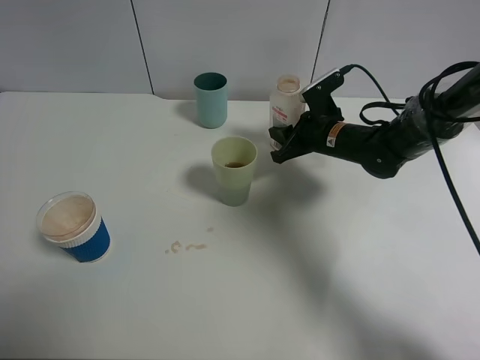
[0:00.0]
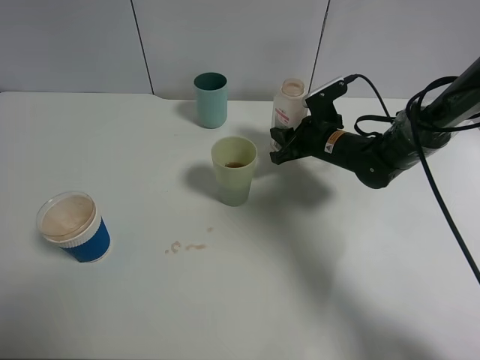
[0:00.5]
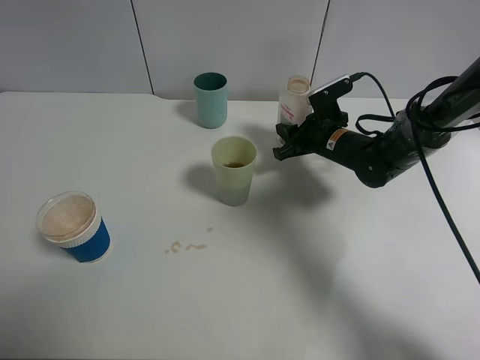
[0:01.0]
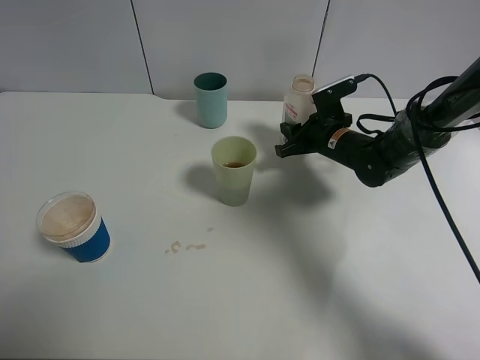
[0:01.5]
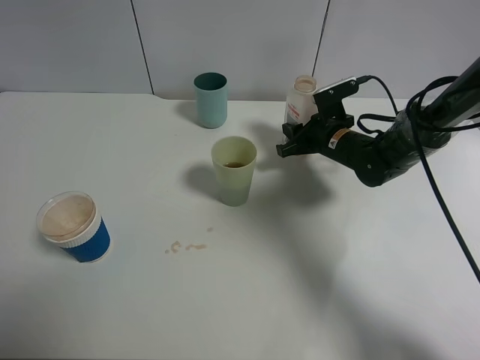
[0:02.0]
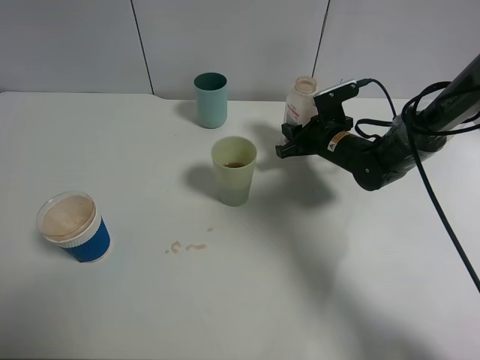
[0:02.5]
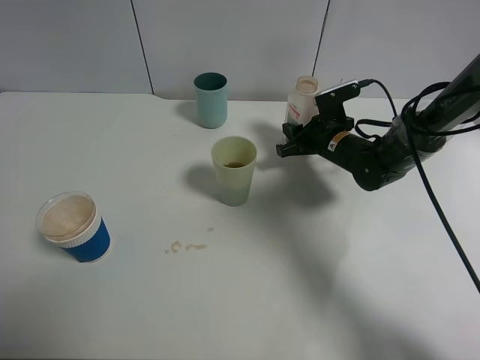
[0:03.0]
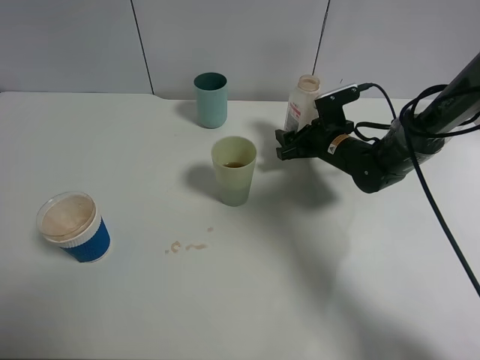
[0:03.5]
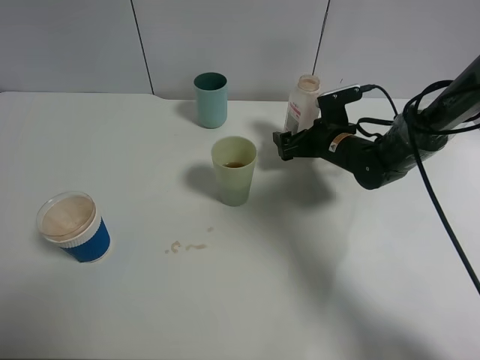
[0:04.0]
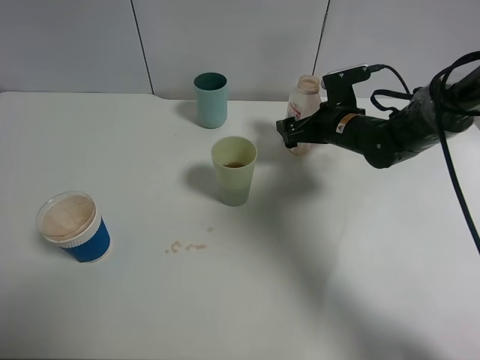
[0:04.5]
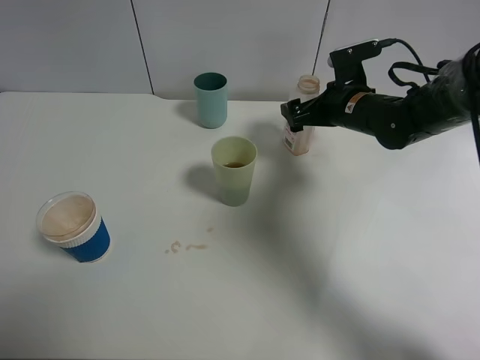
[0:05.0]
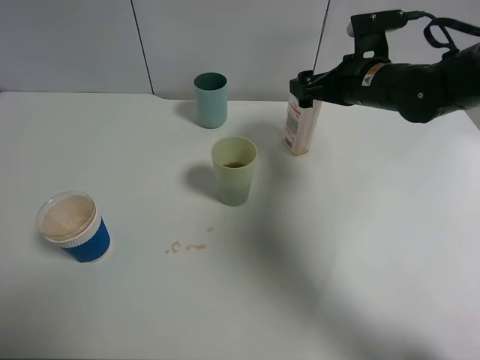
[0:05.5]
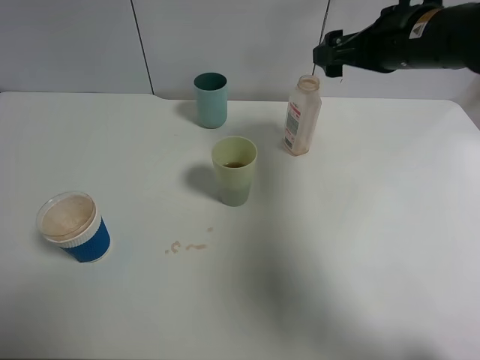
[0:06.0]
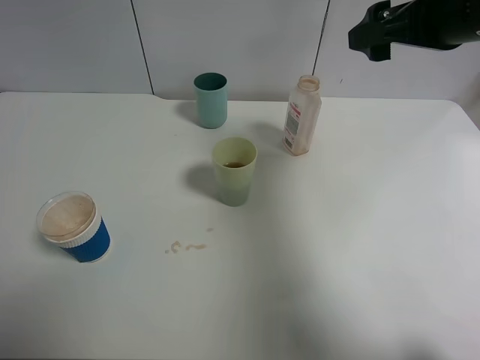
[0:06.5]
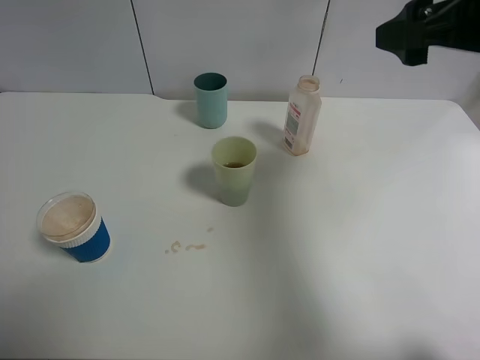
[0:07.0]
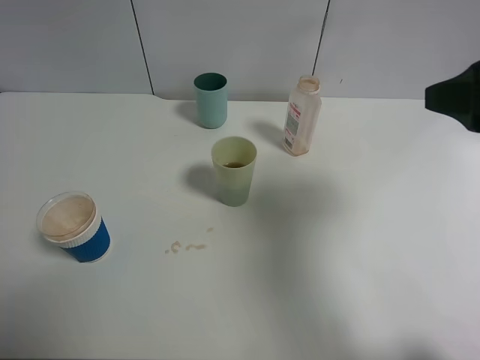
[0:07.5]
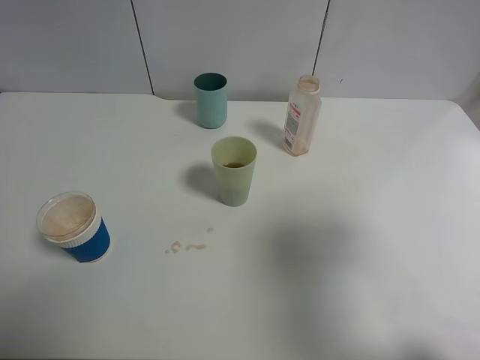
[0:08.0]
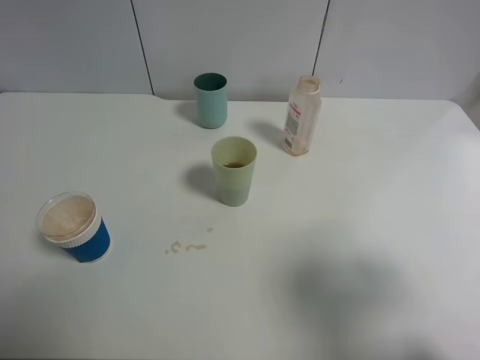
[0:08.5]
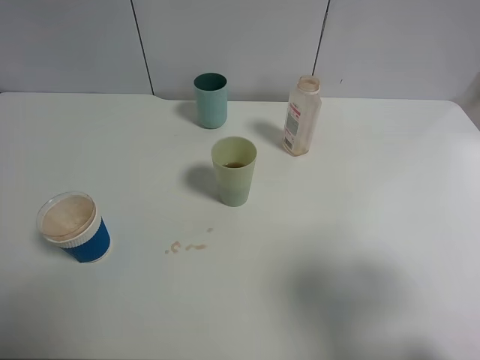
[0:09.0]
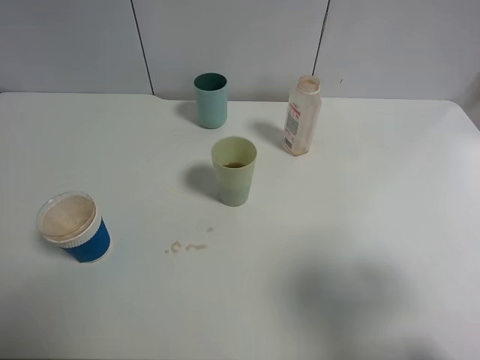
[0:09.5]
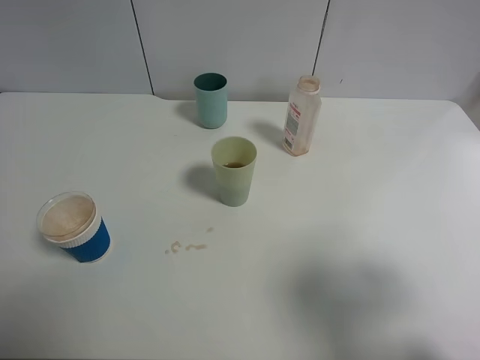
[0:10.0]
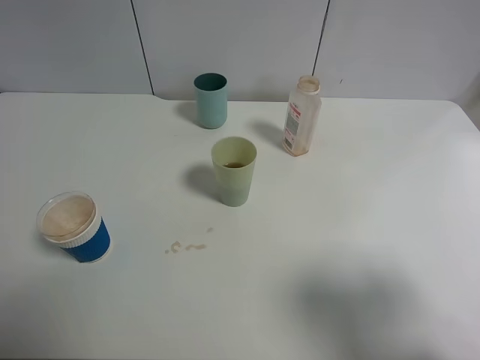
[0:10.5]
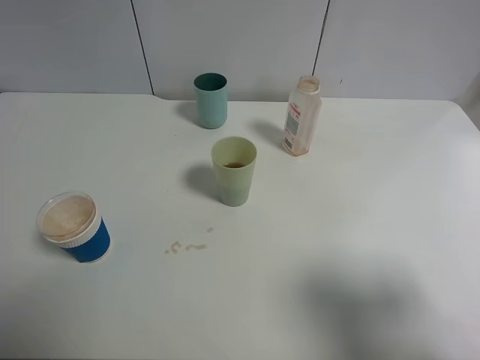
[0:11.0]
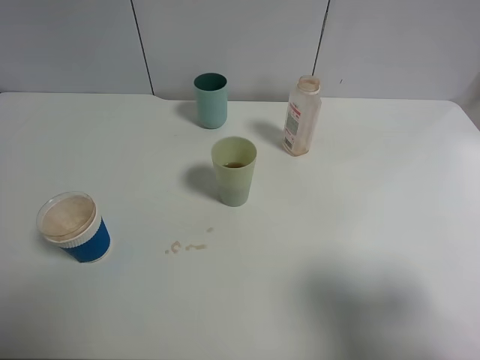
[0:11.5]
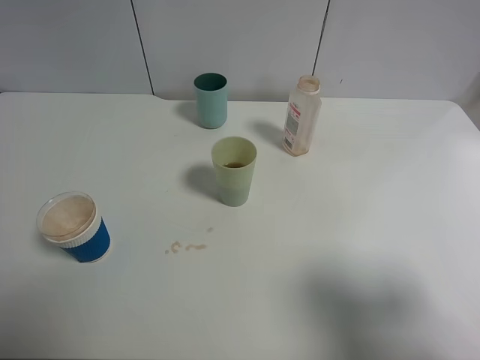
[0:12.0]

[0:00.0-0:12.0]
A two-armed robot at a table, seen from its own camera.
Task of the whole recording: use a clamp to hold the bottle of the drink, pour the beverage into a random cup, then clamp the cup containing the drink and pour the drink into another random cup.
Step, 0:00.0 to 0:04.0: Place the drink bottle on the table with right gripper.
0:00.0 to 0:02.0: The grippers stay close to where they were, moving slightly.
0:02.0 to 0:04.0: The right gripper opens.
0:04.0 to 0:06.0: The right gripper goes approximately 20 cm upward.
0:06.0 to 0:08.0: The right gripper heads backward, covering about 25 cm.
0:08.0 to 0:10.0: The right gripper shifts by some 5 cm.
0:10.0 to 0:12.0: The grippers make only small movements.

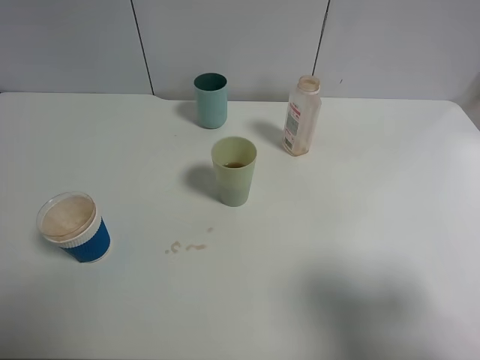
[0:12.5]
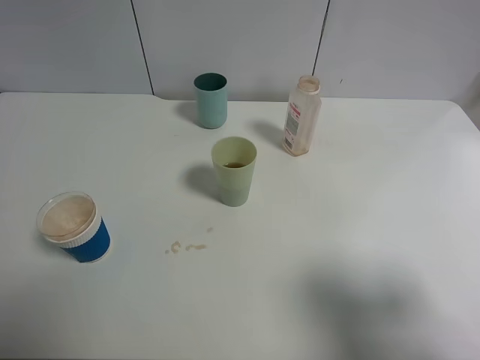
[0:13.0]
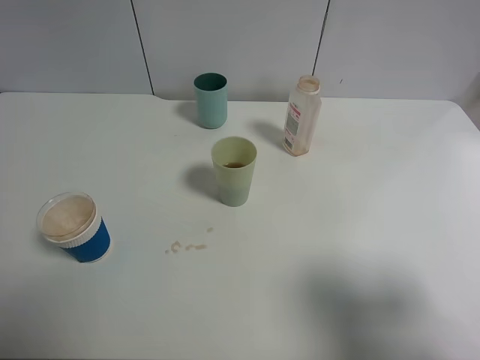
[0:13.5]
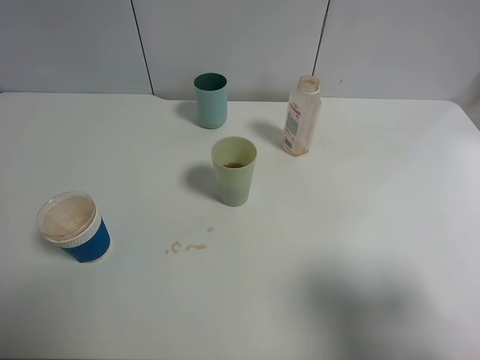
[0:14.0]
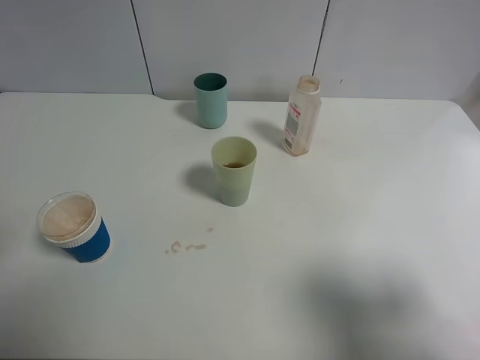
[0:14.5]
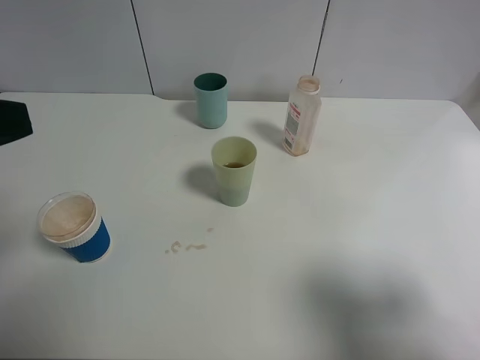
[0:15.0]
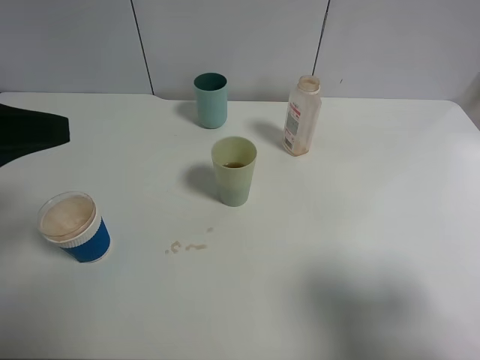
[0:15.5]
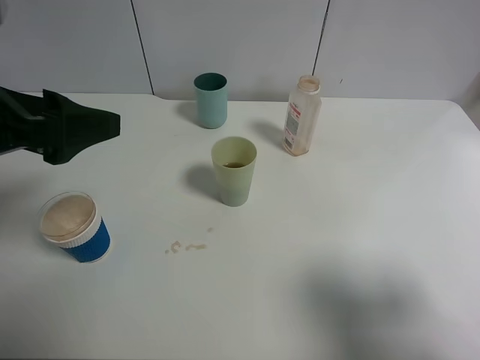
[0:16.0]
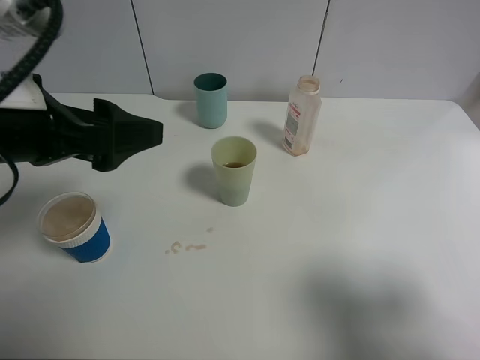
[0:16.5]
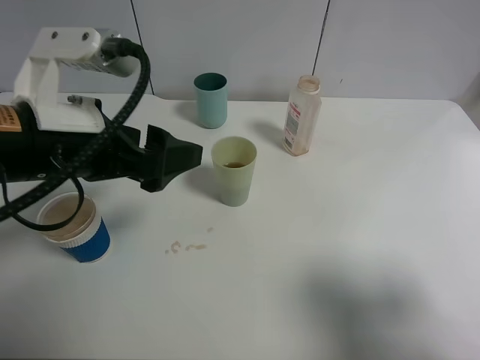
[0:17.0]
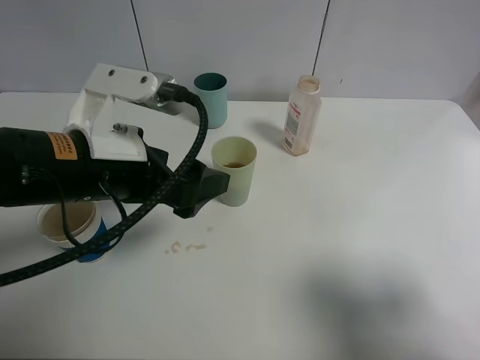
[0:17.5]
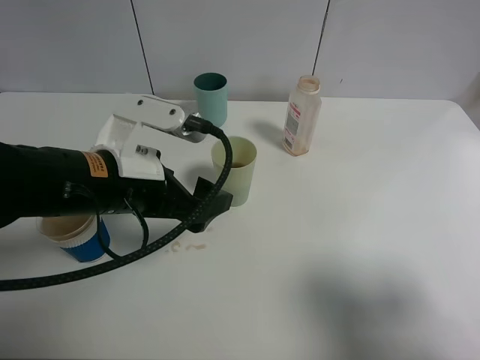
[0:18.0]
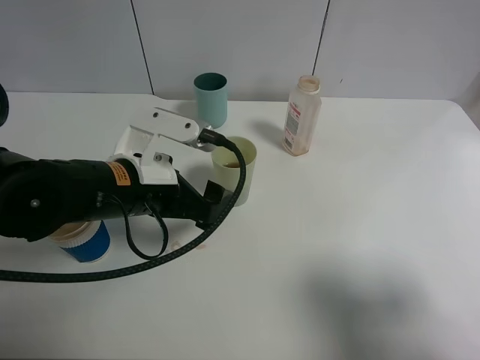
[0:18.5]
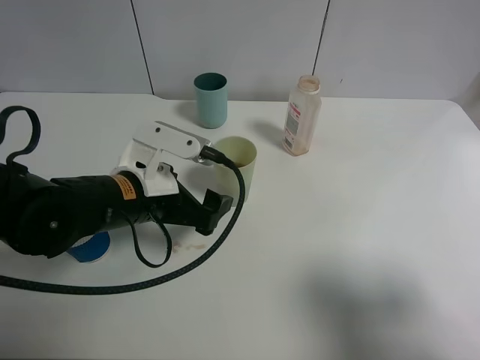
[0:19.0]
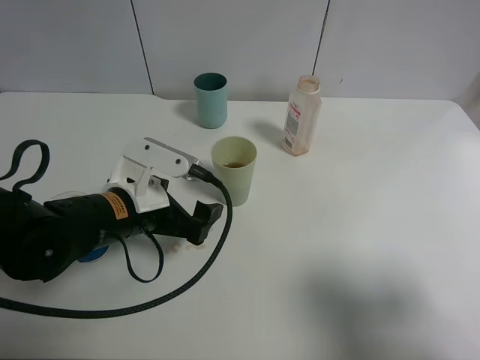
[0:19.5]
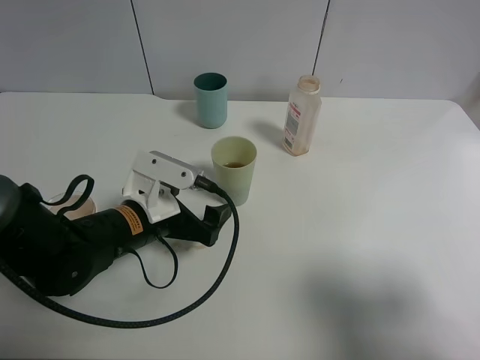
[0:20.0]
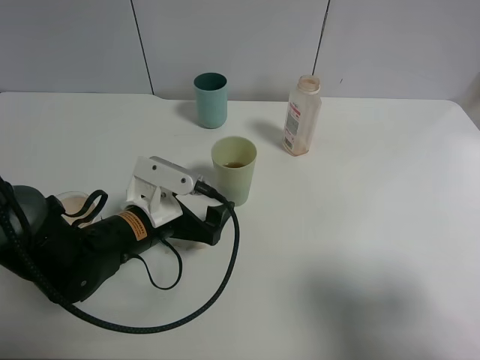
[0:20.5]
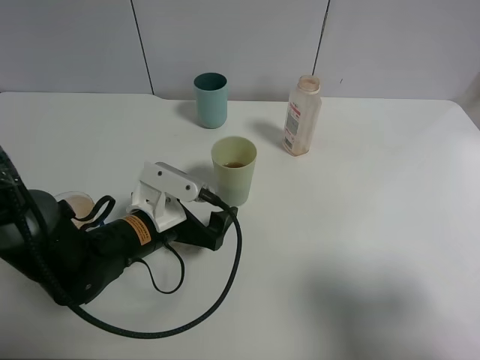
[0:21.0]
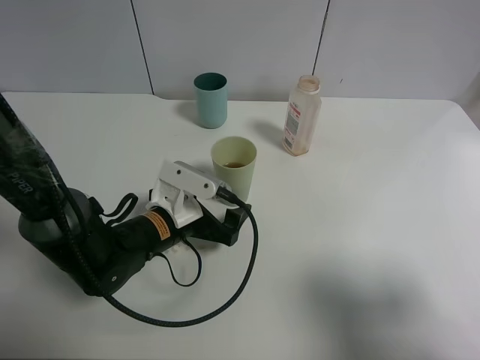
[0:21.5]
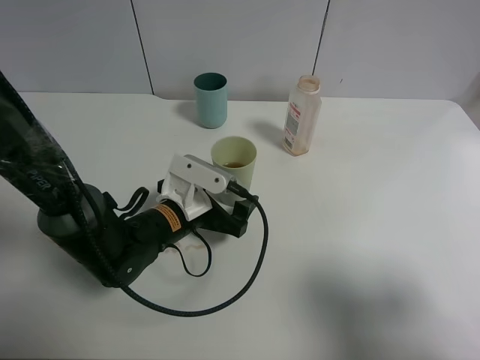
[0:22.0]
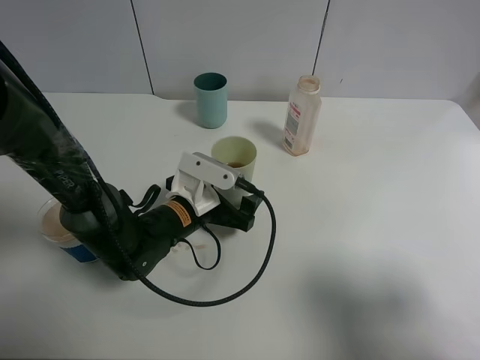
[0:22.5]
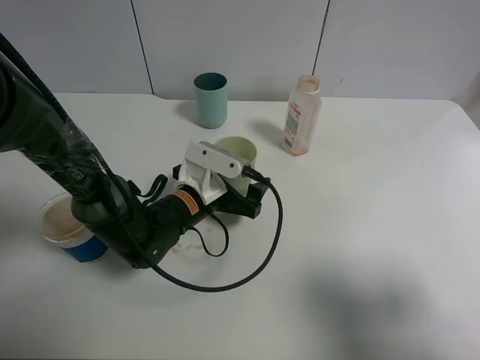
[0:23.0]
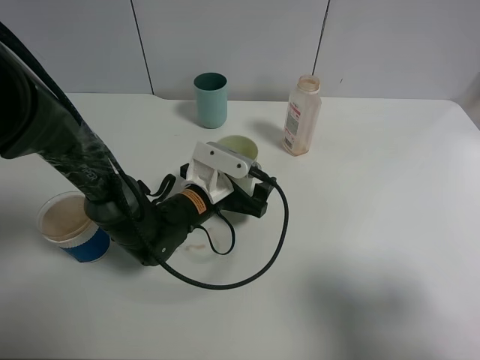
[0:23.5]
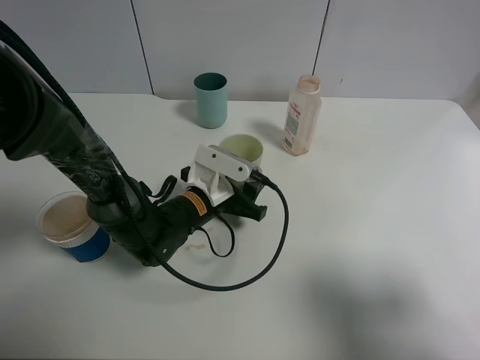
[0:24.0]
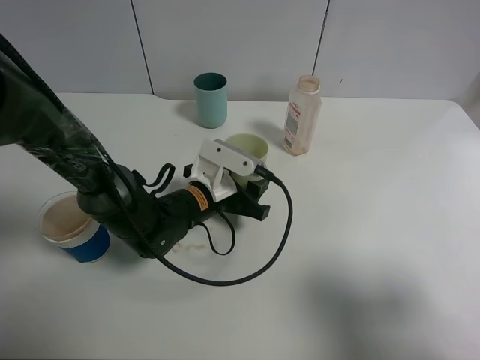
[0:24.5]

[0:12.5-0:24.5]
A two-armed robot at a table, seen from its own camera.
Task of the whole recording: use a clamp to hold the bottle of the drink, pour the beverage into a random cup, then clamp the cup containing the drink and pour the drink into another random cup.
0:14.5 to 0:16.5: The left gripper shifts some 15 cm forward, to the right and downward.
0:16.5 to 0:18.5: The left gripper goes approximately 15 cm downward and to the right.
0:18.5 to 0:20.5: The left gripper goes about 10 cm downward.
0:20.5 to 0:22.5: The left gripper moves approximately 5 cm.
0:22.5 to 0:24.5: The left gripper closes its fingers.

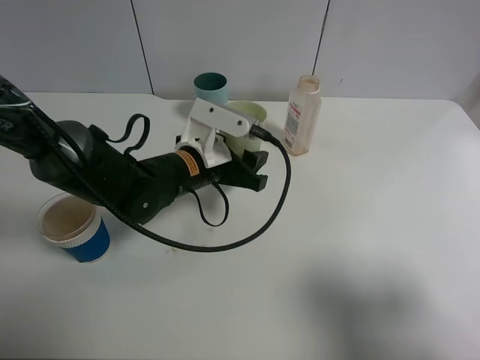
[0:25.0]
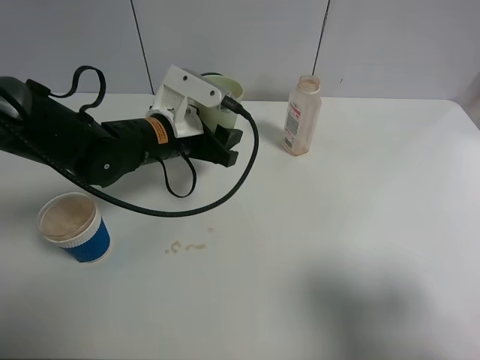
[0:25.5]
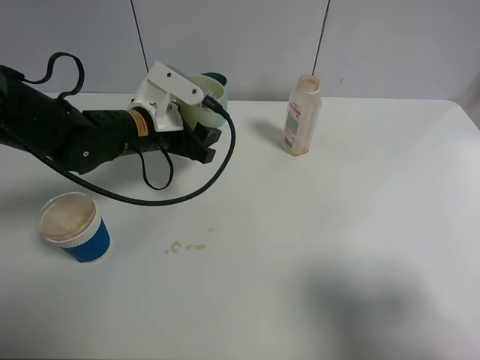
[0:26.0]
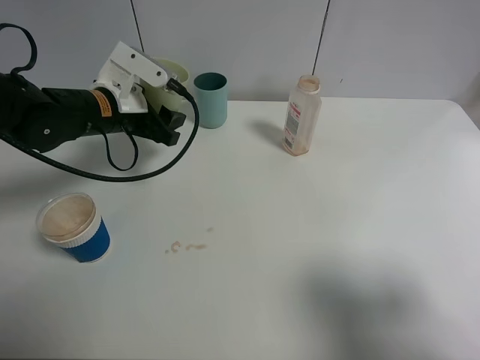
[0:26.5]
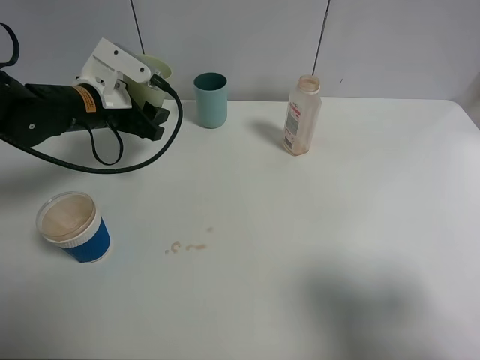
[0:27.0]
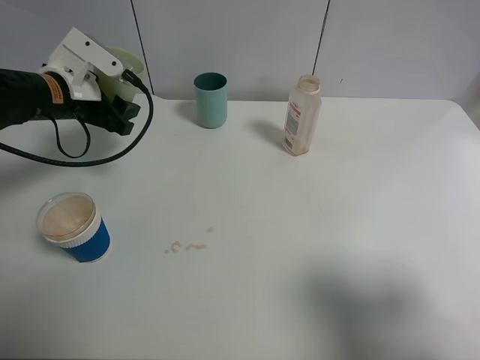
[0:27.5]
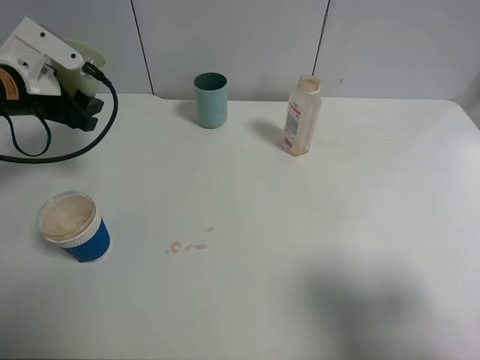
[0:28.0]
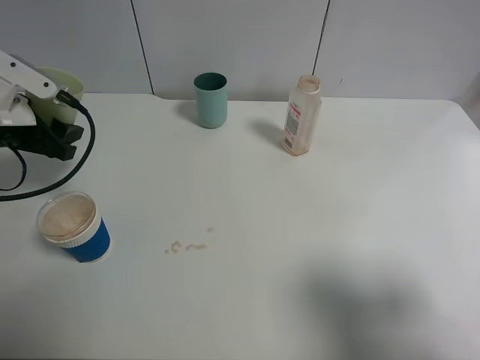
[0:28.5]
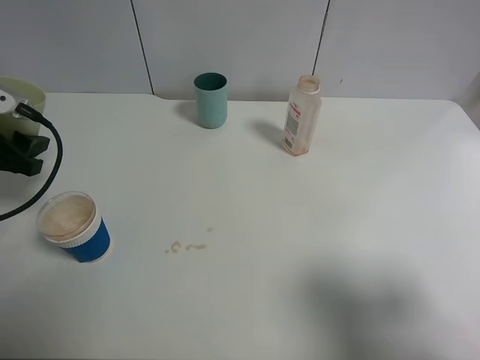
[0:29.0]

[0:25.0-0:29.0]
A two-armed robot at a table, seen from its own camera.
Task of the whole recording: use a clamp to hold the bottle of the drink, pour the beverage into a random cup, then clamp the cup containing the drink and pour the drink into another random cup.
0:25.0 to 0:27.0: The left gripper heads to the left and forward, covering roughly 15 cm.
0:27.0 to 0:29.0: The left gripper travels to the left and backward by about 15 cm.
